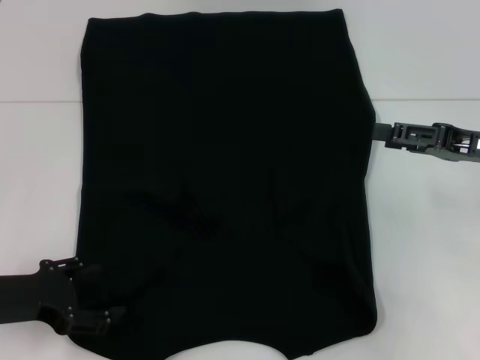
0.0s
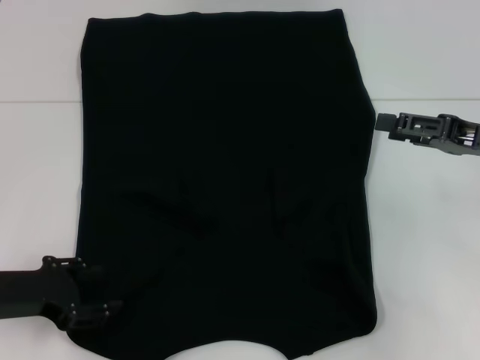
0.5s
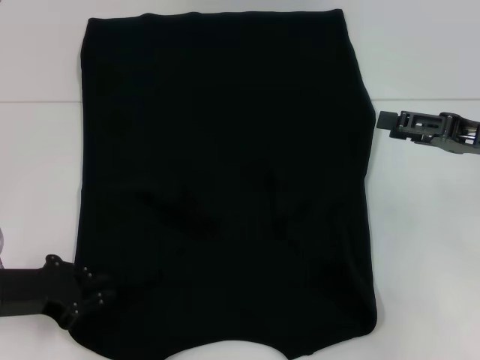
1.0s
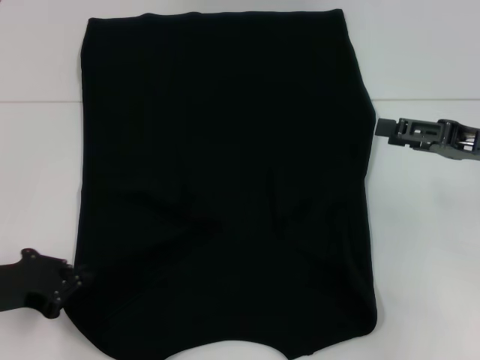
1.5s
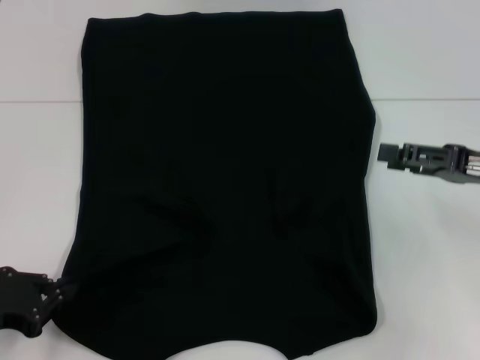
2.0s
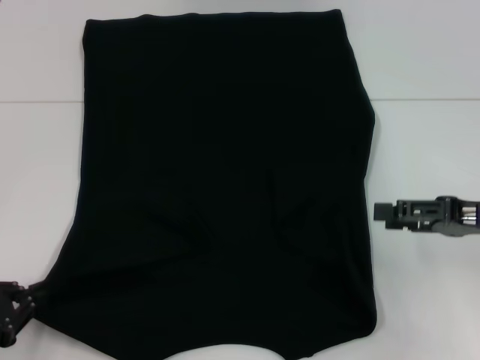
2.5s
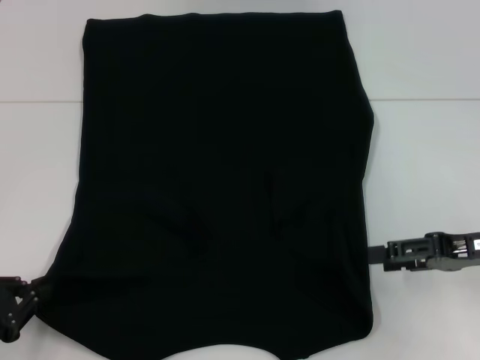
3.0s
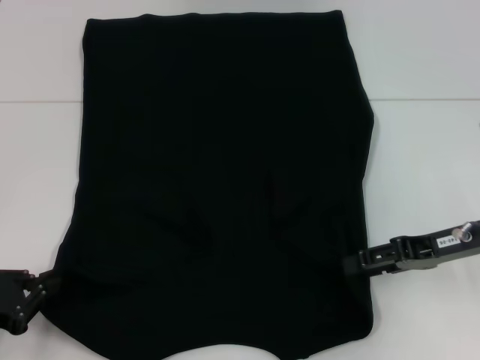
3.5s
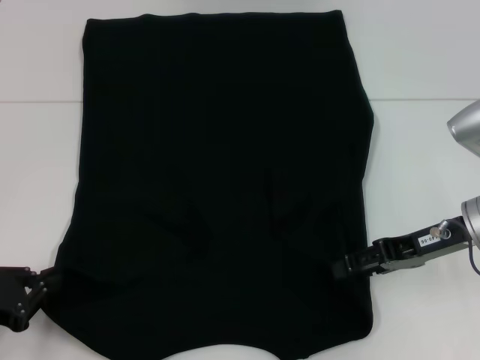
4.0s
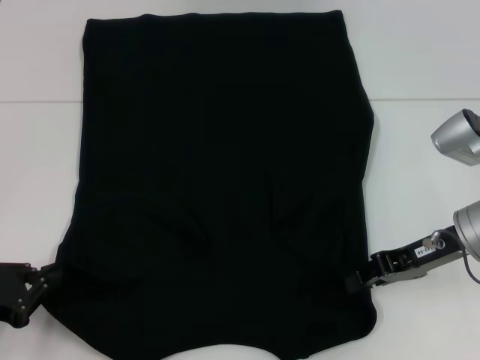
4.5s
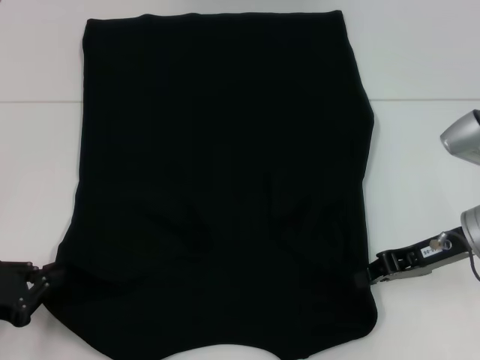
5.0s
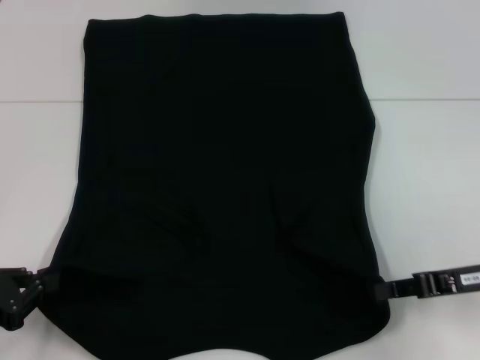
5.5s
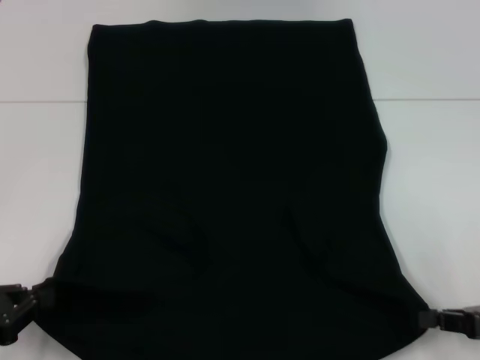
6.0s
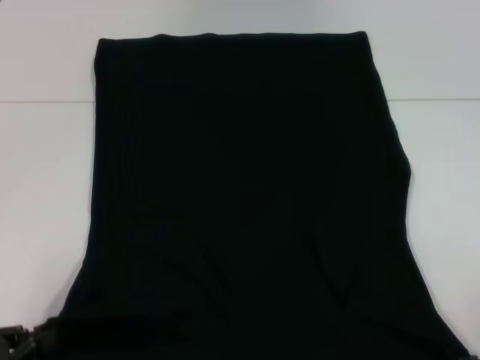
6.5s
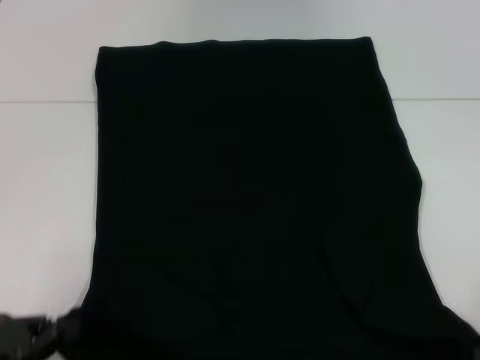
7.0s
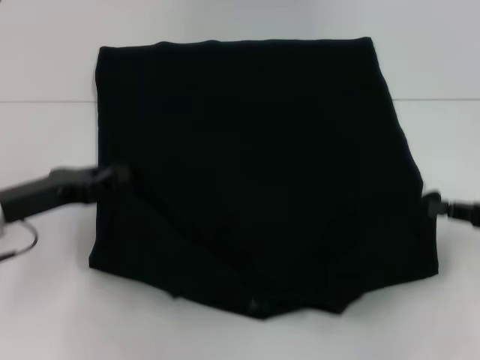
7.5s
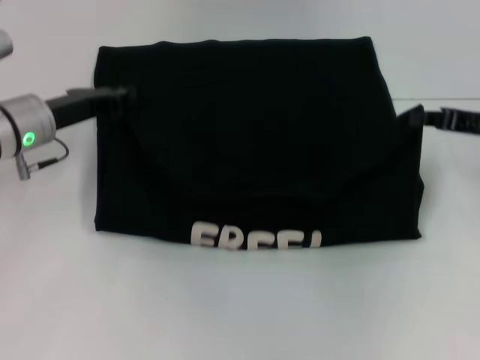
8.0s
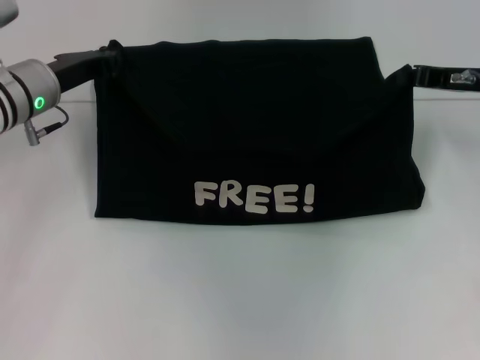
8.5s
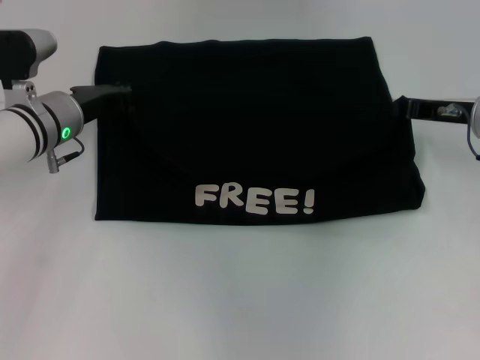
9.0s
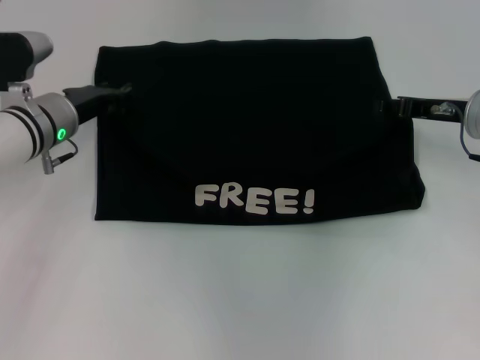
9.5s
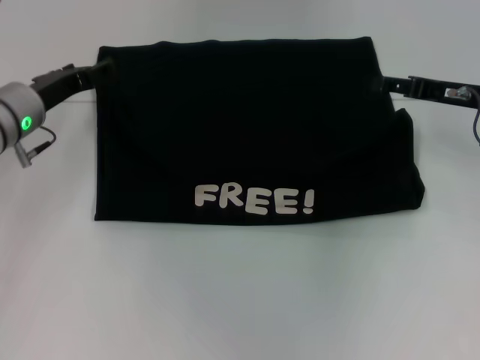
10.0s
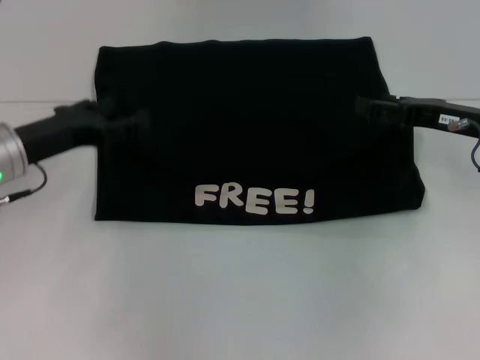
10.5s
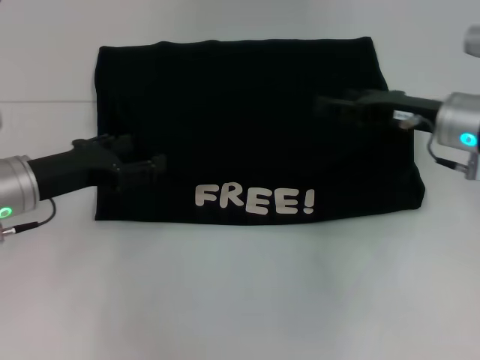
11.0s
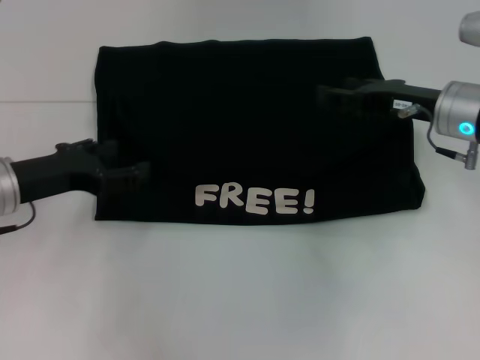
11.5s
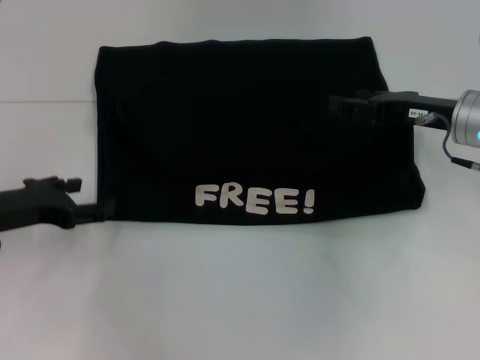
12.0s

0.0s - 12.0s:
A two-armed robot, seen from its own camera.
Step, 0.0s - 3.0s: Grab the bottom left corner with your left hand.
Step, 3.5s - 5.5s: Grab the bottom right corner with your right hand.
Step, 6.0s - 9.5s: Fold the clothes with your left hand.
Step, 6.0s - 9.5s: Fold the clothes with your right hand.
0.0s - 2.0s: The left gripper closes its fingers.
2.0s - 4.0s: The right gripper travels to the left by roughly 5 cm.
4.0s - 6.0s: The right gripper travels backward and to the right by about 15 cm, and closes its fingers.
6.0s - 8.0s: The left gripper goes roughly 25 cm forward and to the right. Meanwhile the right gripper moves forward and upward, some 15 cm.
8.0s - 10.0s: The right gripper opens up; the left gripper opens.
10.0s - 12.0s: The left gripper heads backward, covering about 10 cm.

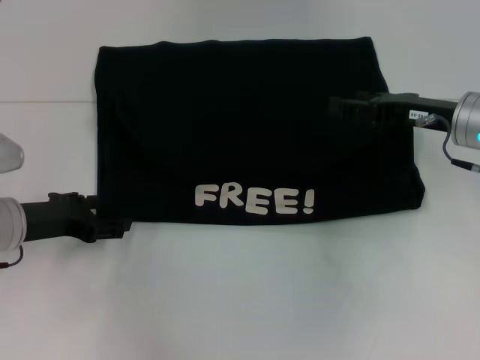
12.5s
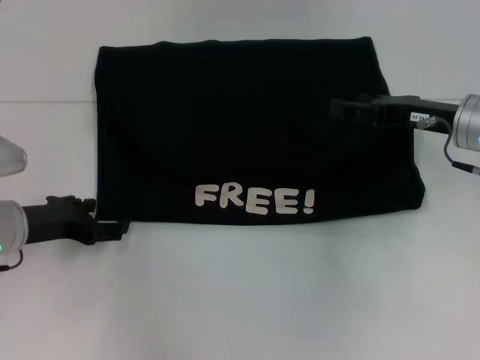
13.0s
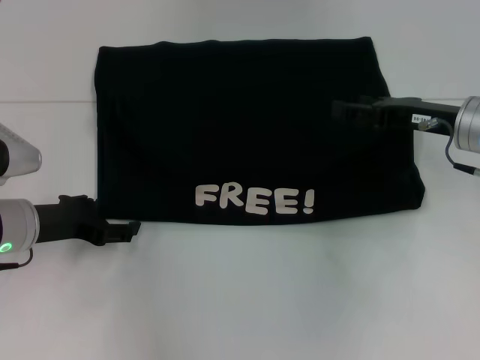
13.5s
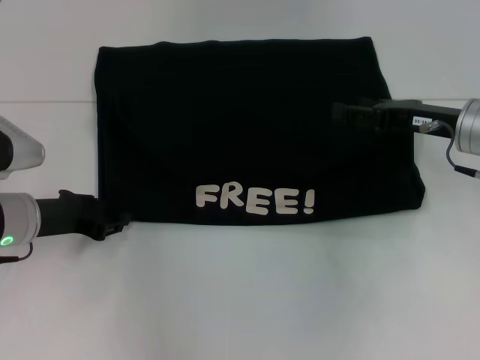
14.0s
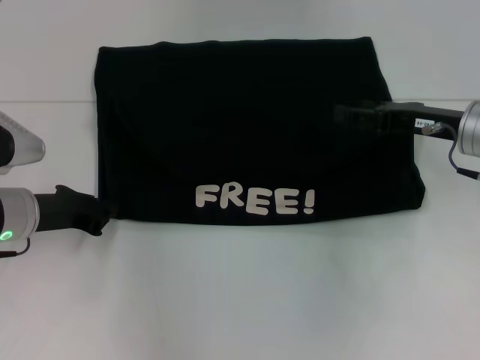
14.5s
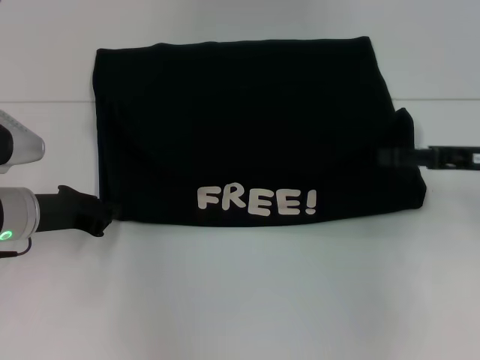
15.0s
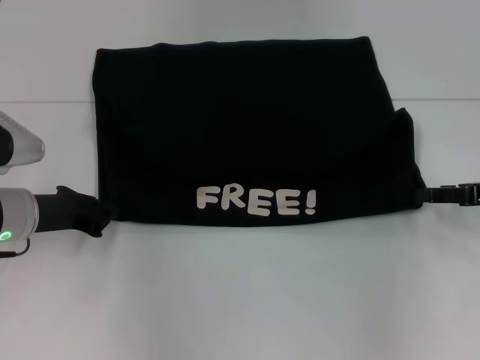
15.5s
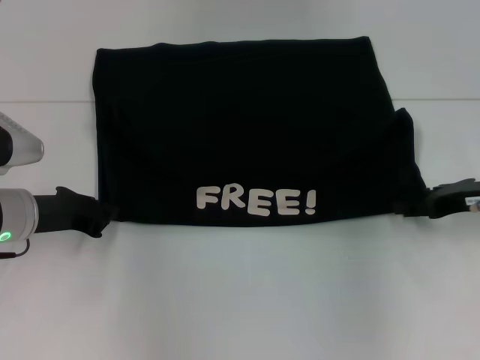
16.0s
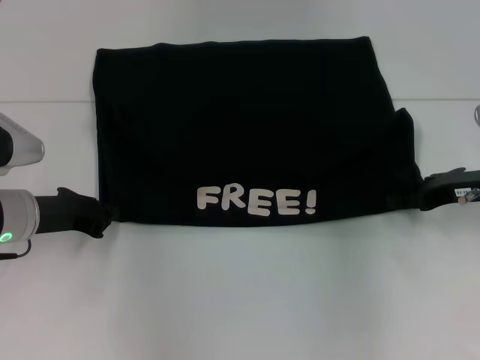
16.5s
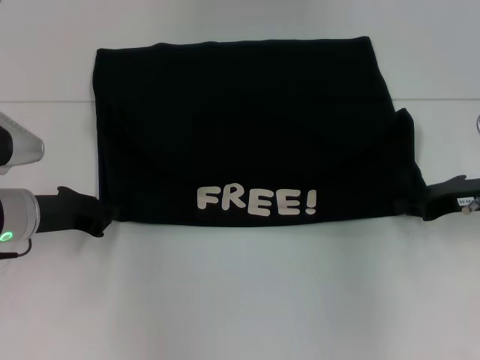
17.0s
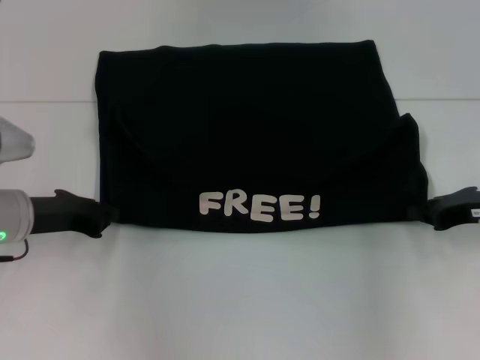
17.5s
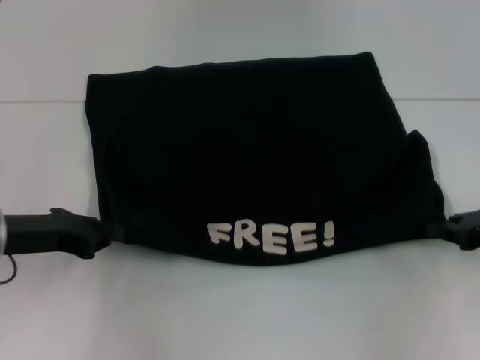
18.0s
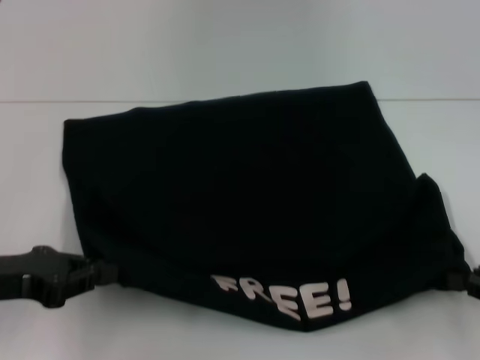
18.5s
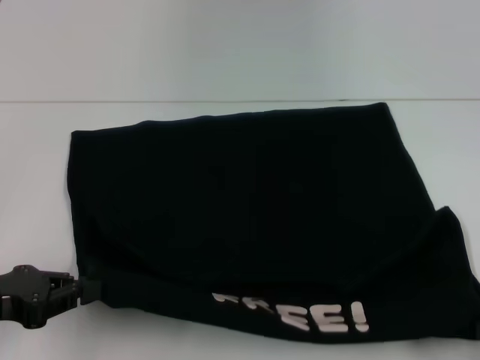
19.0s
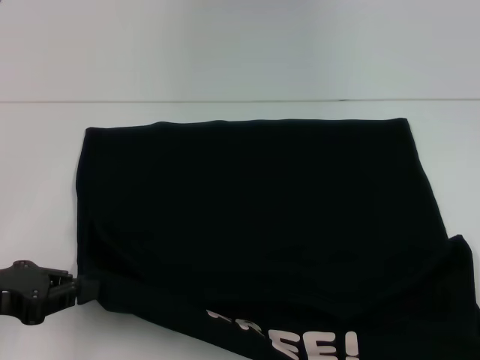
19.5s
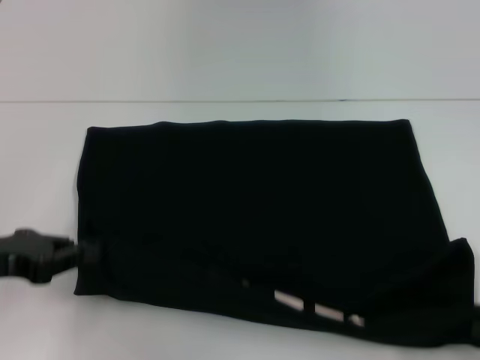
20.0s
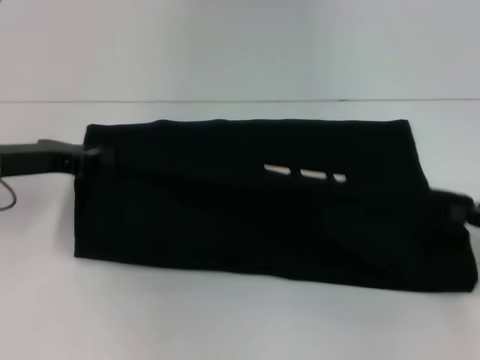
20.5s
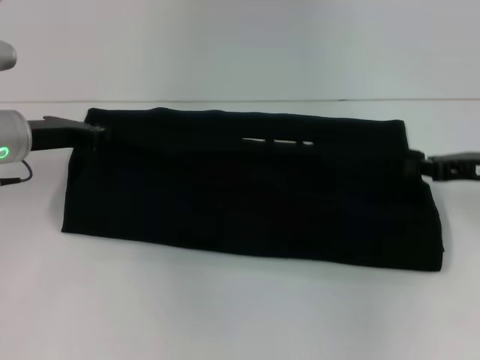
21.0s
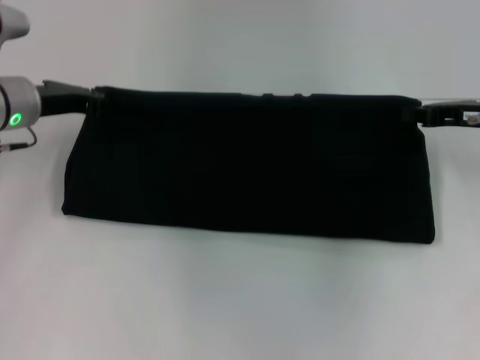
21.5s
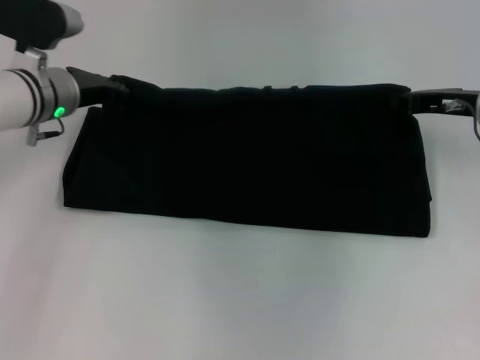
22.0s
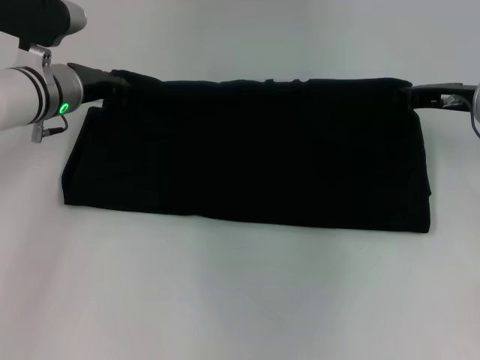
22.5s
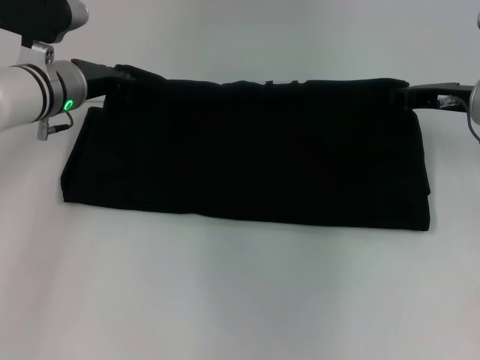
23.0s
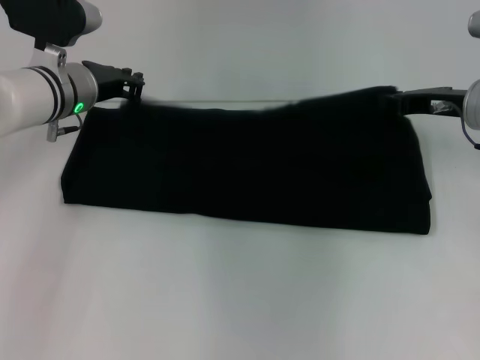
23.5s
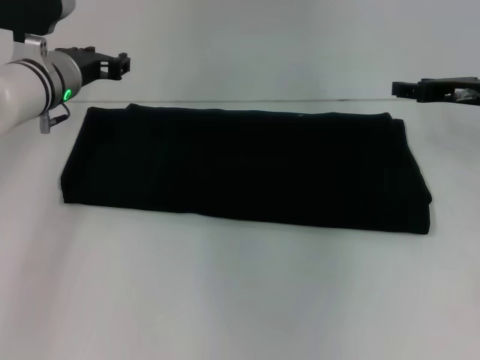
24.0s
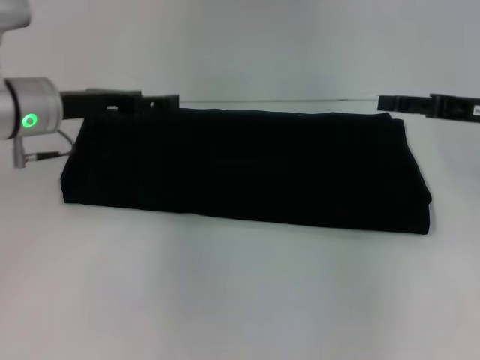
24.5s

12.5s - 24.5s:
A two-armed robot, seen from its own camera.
Step, 12.5s - 19.0s: Pull the clothes with your left hand.
Step, 12.5s - 19.0s: Pull the clothes with your right hand.
Step, 19.5s - 23.5s: Fold the clothes with your right hand.
12.5s - 14.5s: The left gripper closes.
16.5s - 18.5s: The right gripper heads backward and to the right, covering about 15 cm, and closes. Meanwhile the left gripper shifts approximately 10 cm backward.
18.5s - 20.5s: The left gripper is displaced forward by approximately 10 cm; the right gripper reaches approximately 10 cm backward, then returns.
20.5s - 22.5s: The right gripper heads forward and to the left, covering about 20 cm. The left gripper goes approximately 10 cm forward and to the right.
22.5s - 24.5s: The left gripper changes place by about 5 cm, and opens its fingers, while the right gripper shifts by some 5 cm, and opens.

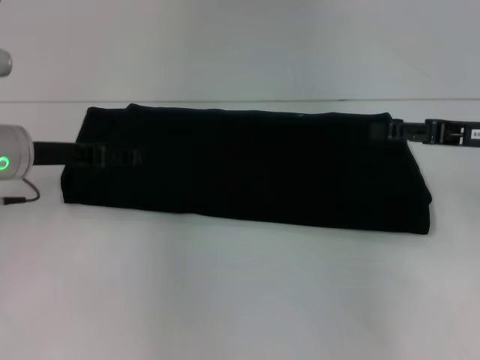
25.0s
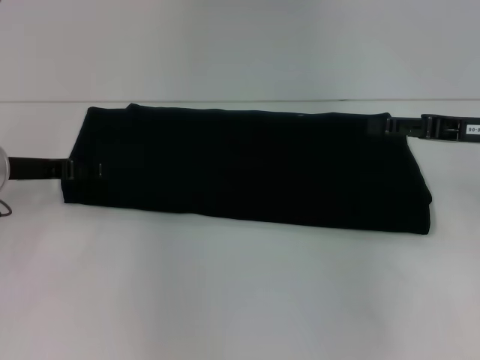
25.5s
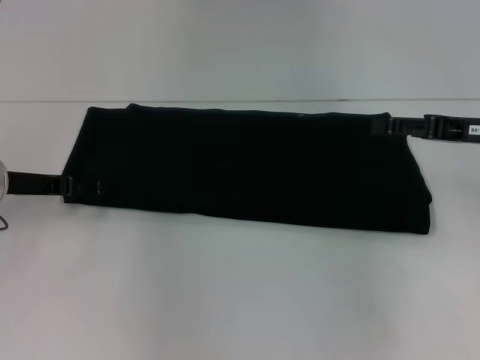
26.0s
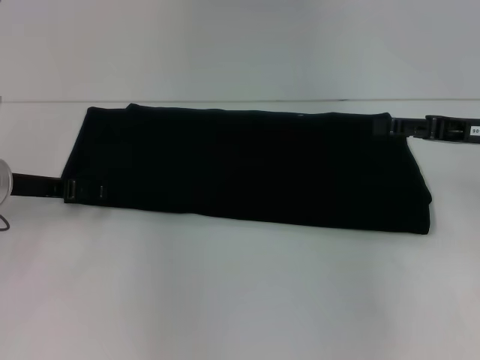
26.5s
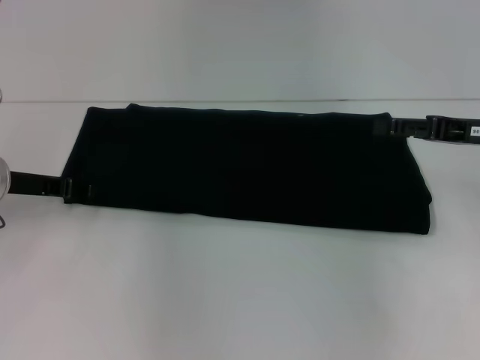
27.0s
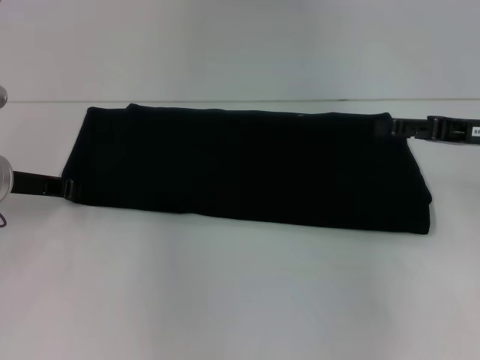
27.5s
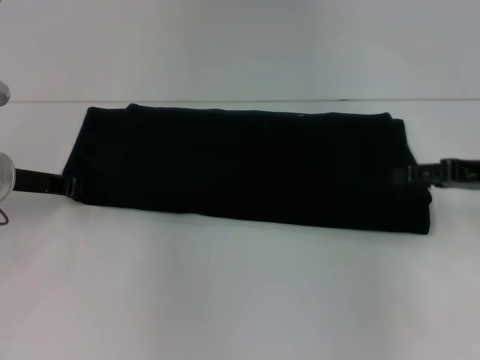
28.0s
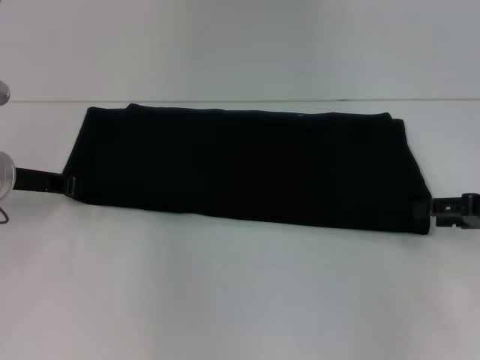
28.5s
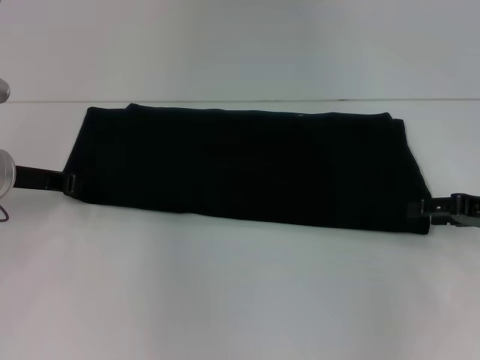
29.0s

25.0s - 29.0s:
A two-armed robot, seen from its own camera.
25.0s - 27.0s: The grippers move only a little.
27.0s - 29.0s: The right gripper travels downward by some 5 cm. Meanwhile the left gripper closes up.
